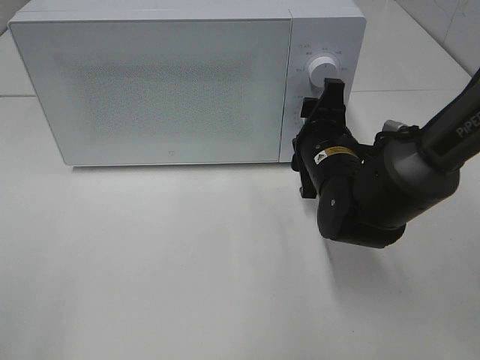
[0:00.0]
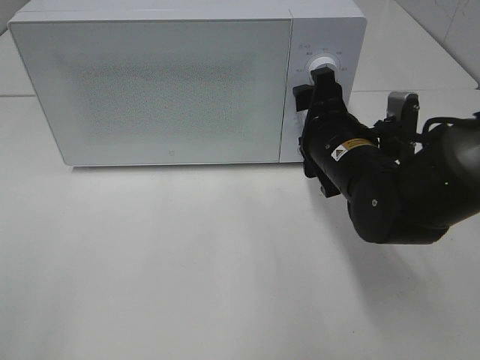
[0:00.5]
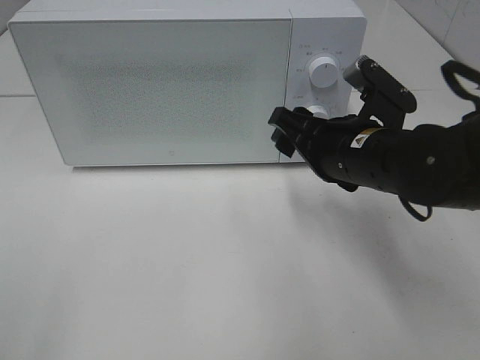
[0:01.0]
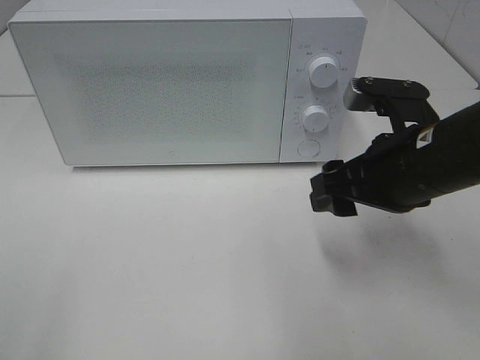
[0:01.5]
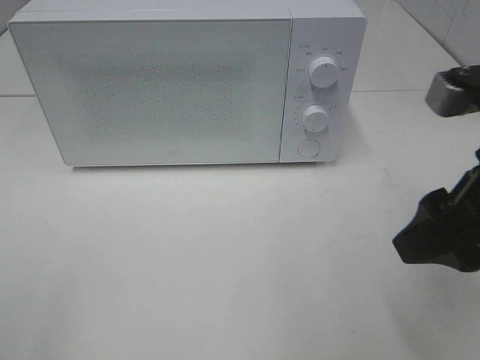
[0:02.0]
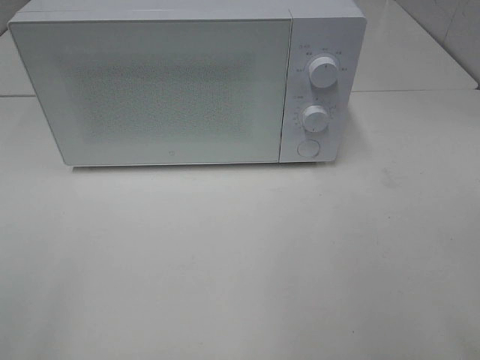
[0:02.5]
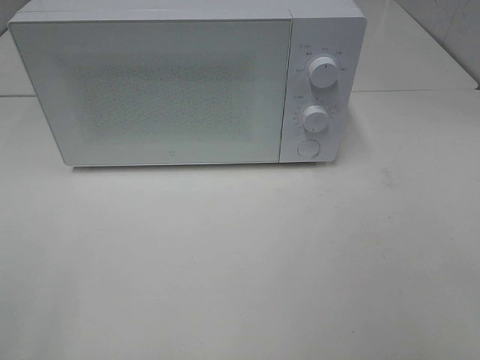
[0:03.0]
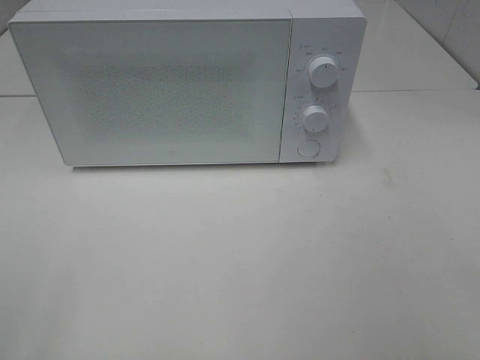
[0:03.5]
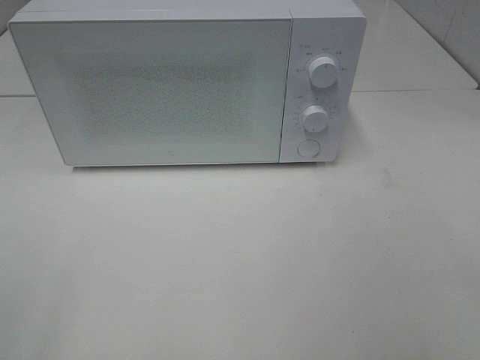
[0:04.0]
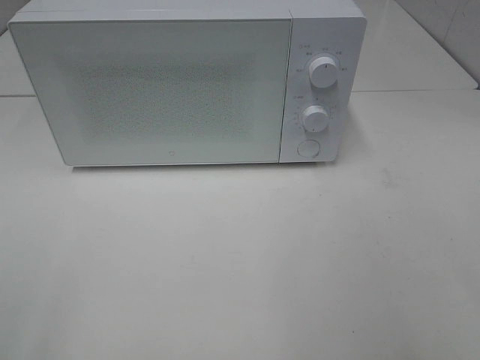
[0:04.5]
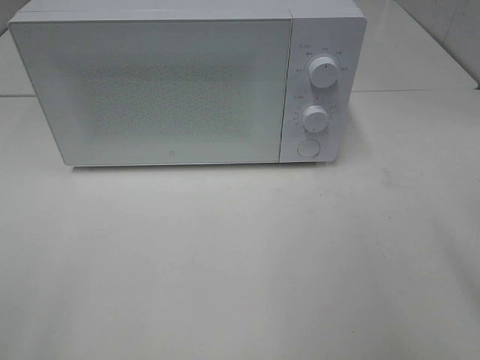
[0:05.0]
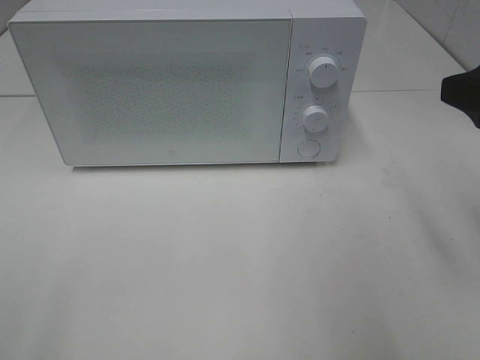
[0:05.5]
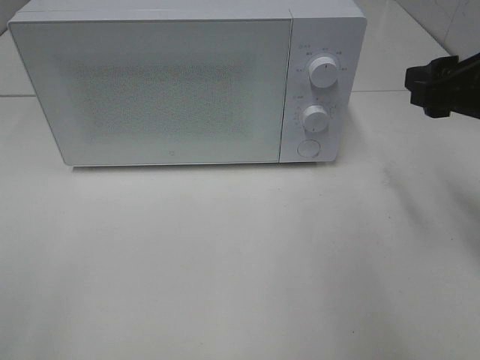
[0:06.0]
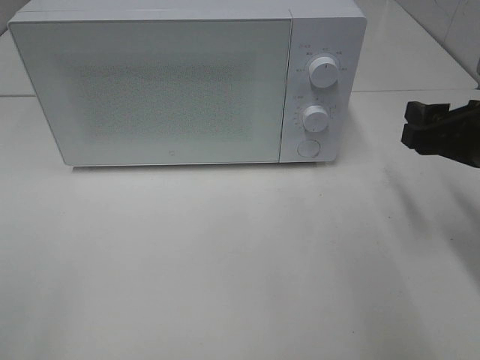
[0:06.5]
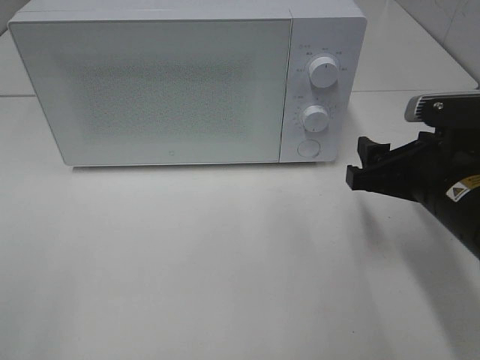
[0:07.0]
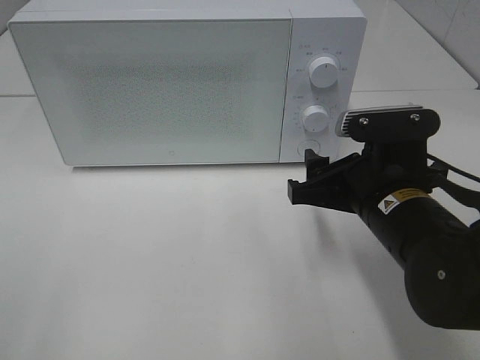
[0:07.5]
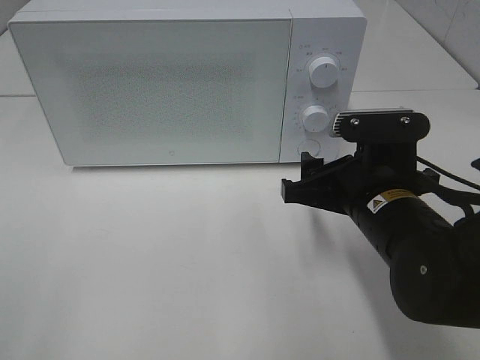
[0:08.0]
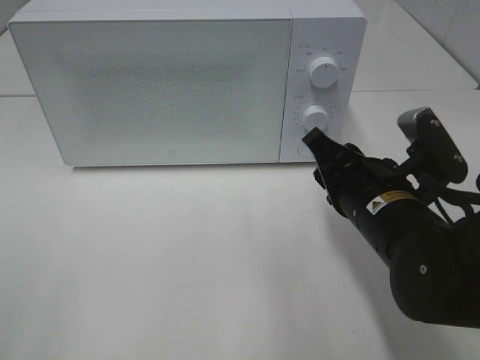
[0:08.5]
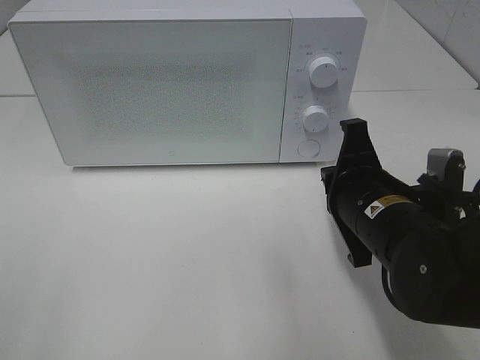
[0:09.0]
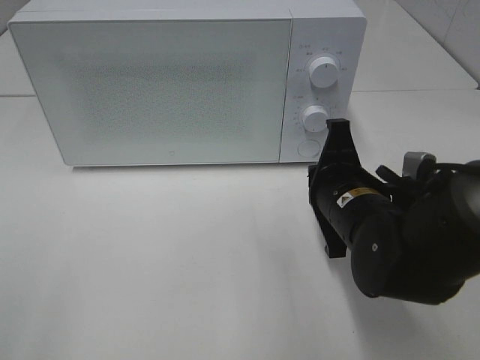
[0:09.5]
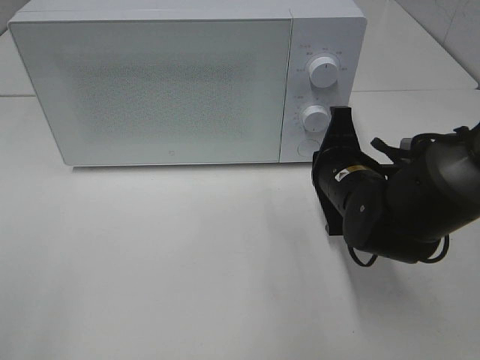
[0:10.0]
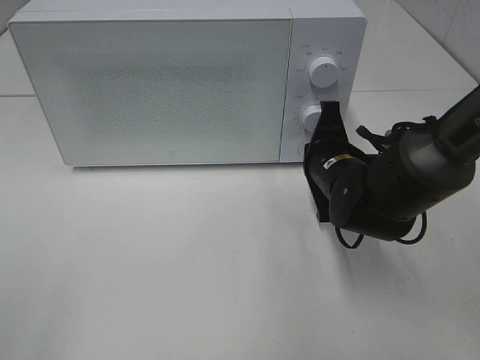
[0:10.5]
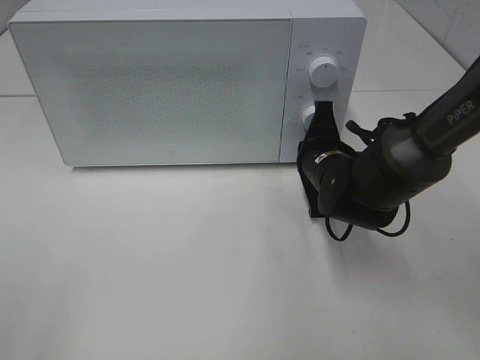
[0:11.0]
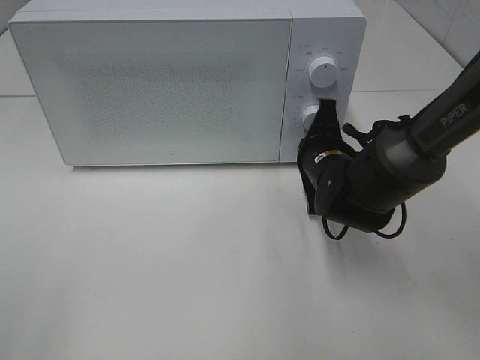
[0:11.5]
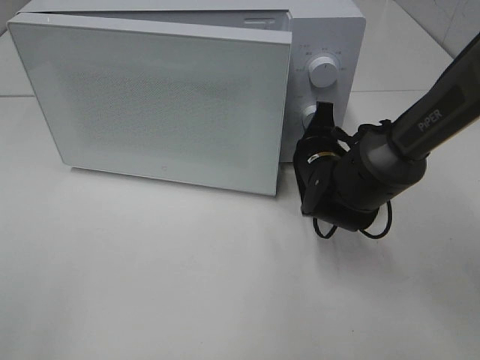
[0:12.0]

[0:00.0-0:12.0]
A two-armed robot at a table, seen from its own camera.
Task of the whole recording: Heat the burger.
0:00.0 to 0:02.0: The right gripper goes some 25 cm backward, upward and to the right.
0:02.0 to 0:04.0: The right gripper moves backward and to the right, approximately 20 cm.
0:04.0 to 0:06.0: The right gripper moves forward, roughly 25 cm.
0:06.0 to 0:08.0: The right gripper is displaced downward and to the left by about 15 cm.
0:08.0 to 0:10.0: The right gripper shifts about 5 cm forward, and closes up.
0:10.0 to 0:12.0: The right gripper heads forward, covering approximately 5 cm.

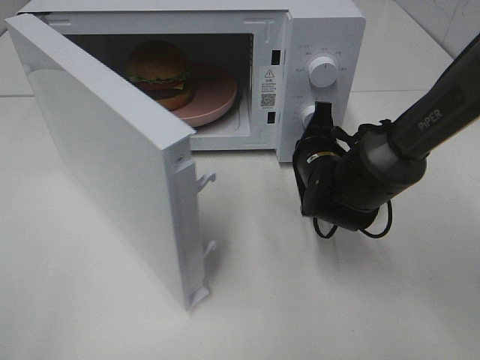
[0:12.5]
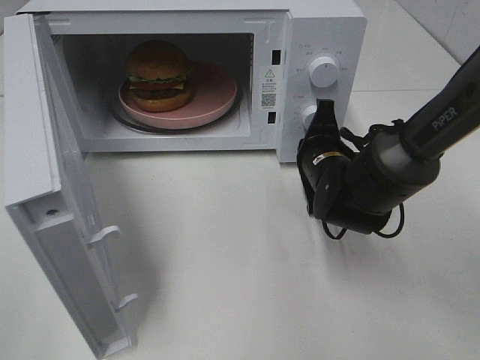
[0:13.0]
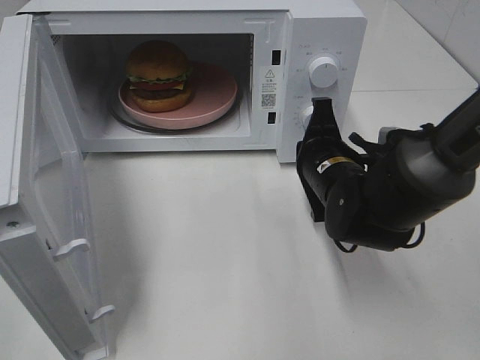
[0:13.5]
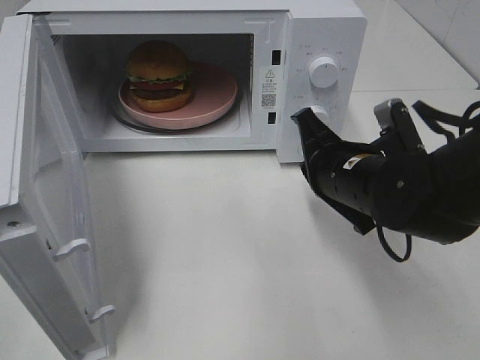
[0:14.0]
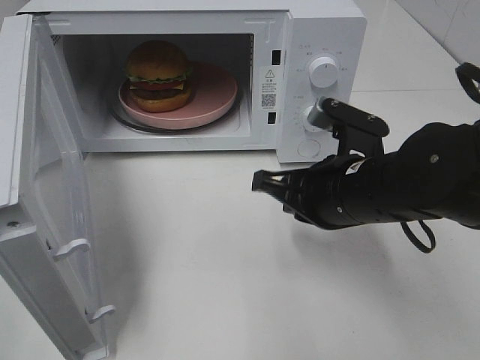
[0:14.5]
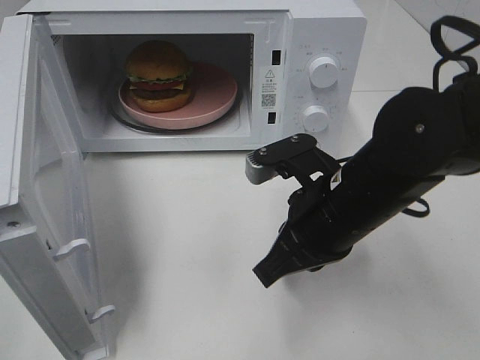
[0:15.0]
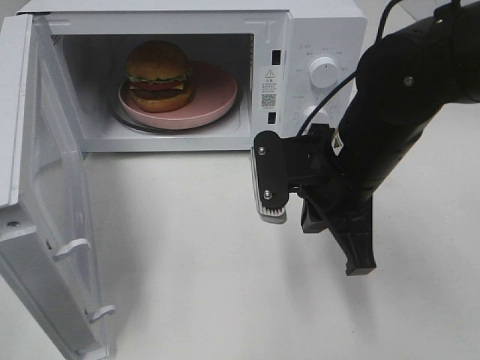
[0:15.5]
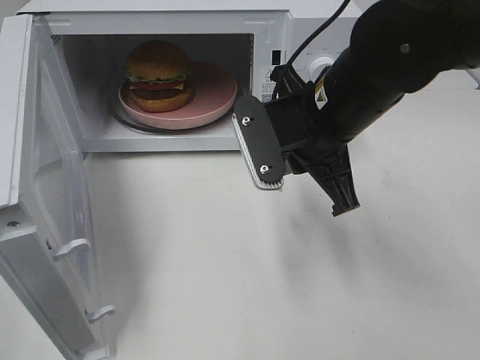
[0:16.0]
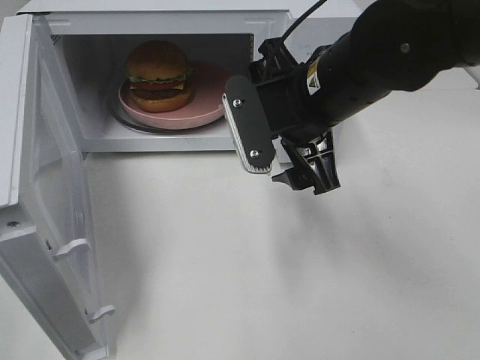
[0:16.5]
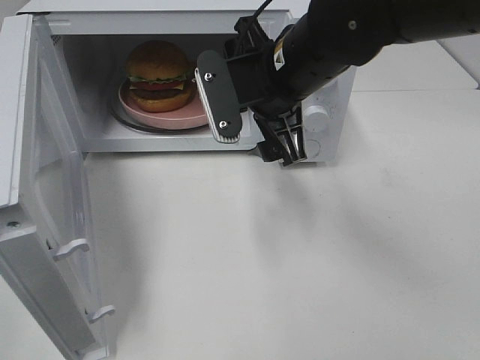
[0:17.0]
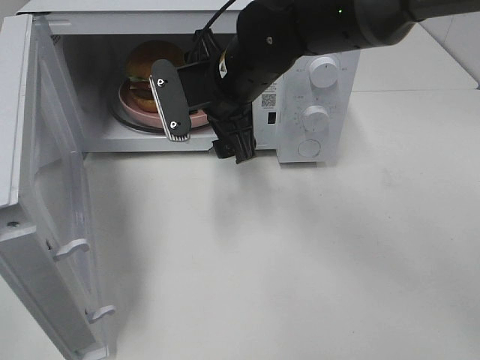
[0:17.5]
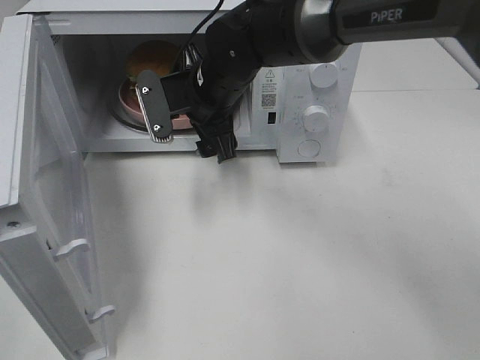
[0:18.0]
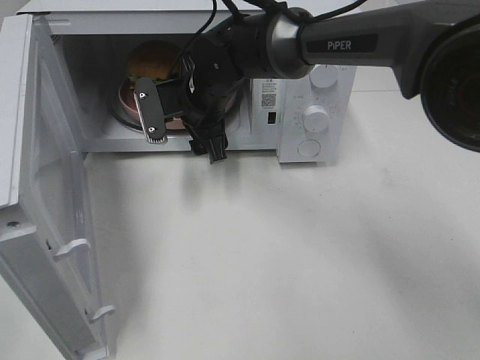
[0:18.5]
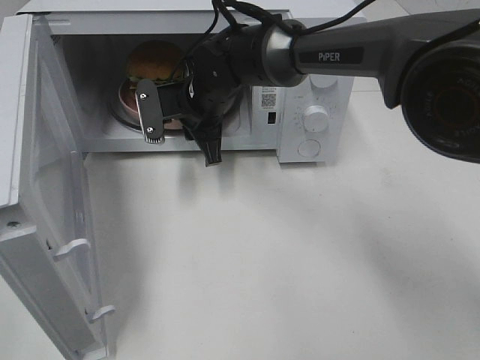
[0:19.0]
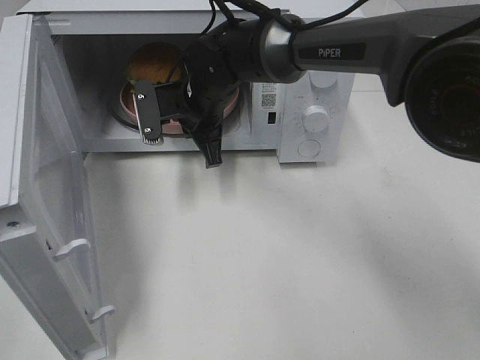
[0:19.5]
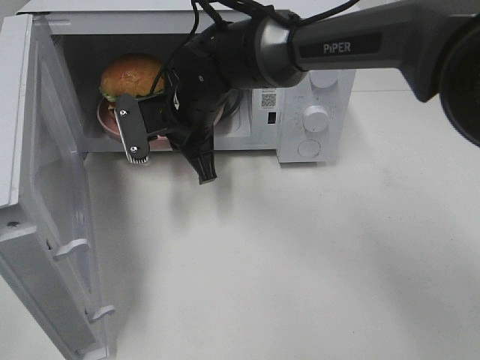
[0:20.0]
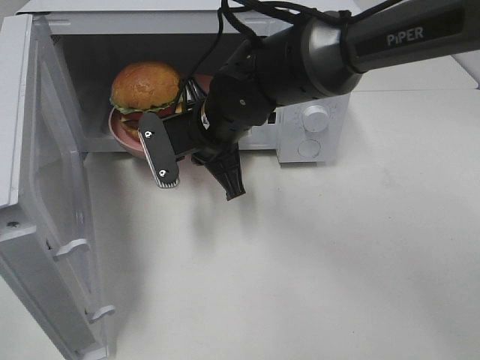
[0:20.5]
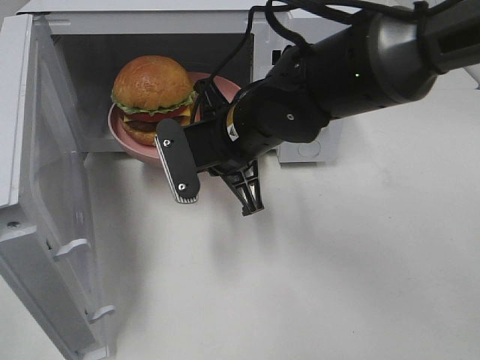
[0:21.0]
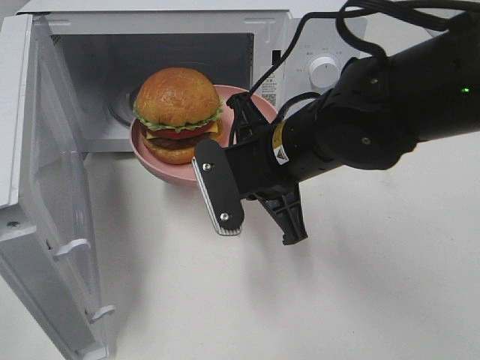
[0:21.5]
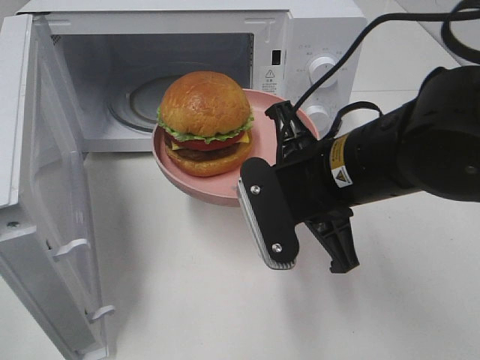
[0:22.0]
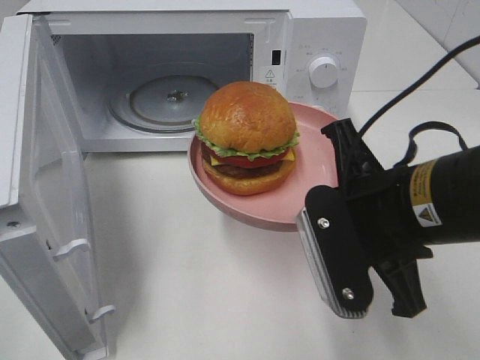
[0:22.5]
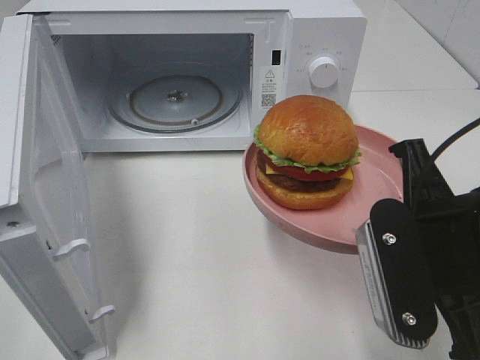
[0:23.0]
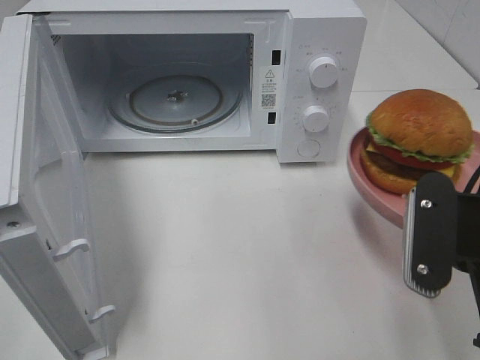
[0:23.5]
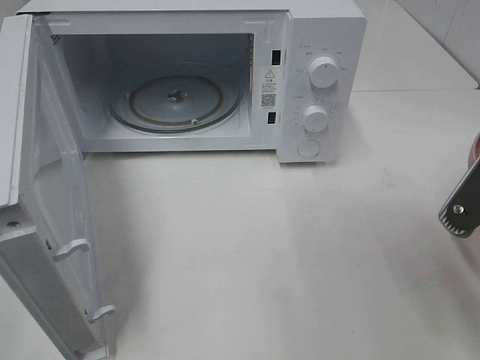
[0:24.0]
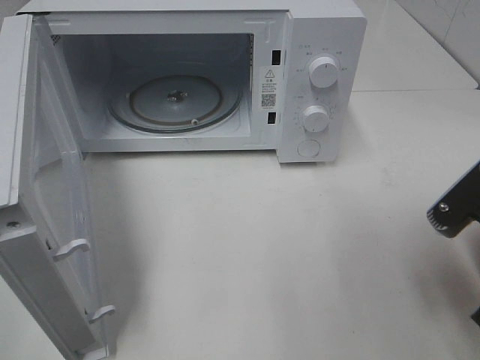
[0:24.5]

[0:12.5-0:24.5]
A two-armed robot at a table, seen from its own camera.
Task of the whole recording: Heat the burger.
Step, 0:13.5 to 0:19.0: Right hand: grab the plate with the hamburger.
0:12.5 to 0:14.5: The right gripper shifts approximately 15 cm backward and upward.
0:14.5 to 0:16.5: The right gripper goes about 10 cm upward, and opens up.
0:16.5 to 0:18.5: The right gripper shifts roughly 20 cm forward, to the left and downward.
0:18.5 to 0:20.5: The right gripper goes some 5 cm backward, and closes.
0:20.5 to 0:22.5: The right gripper moves backward and to the right, some 20 cm.
0:22.5 to 0:24.5: The right gripper moves to the right, roughly 10 cm.

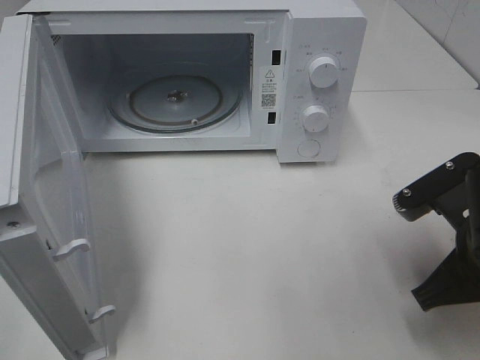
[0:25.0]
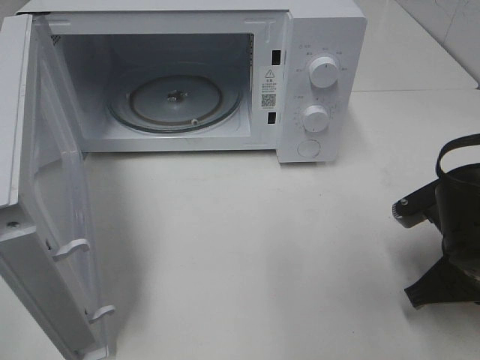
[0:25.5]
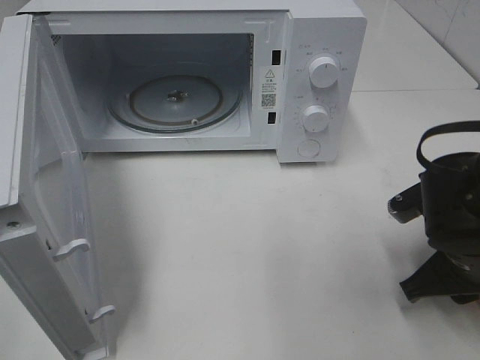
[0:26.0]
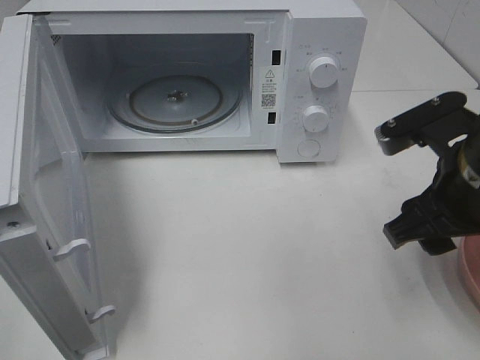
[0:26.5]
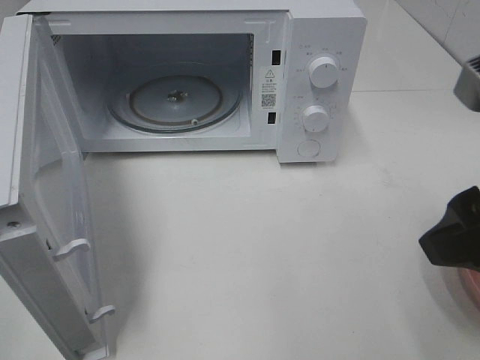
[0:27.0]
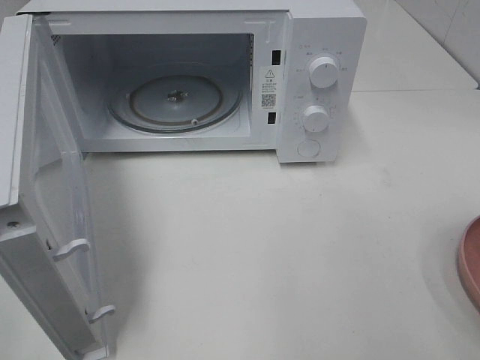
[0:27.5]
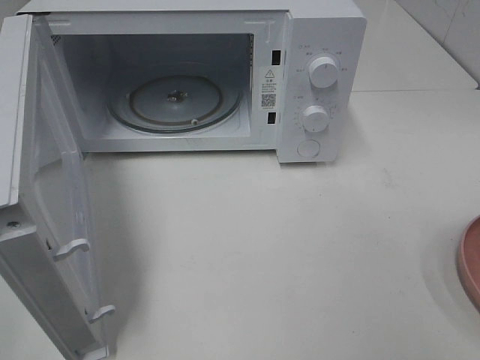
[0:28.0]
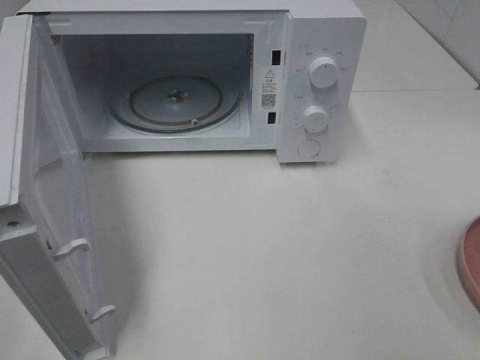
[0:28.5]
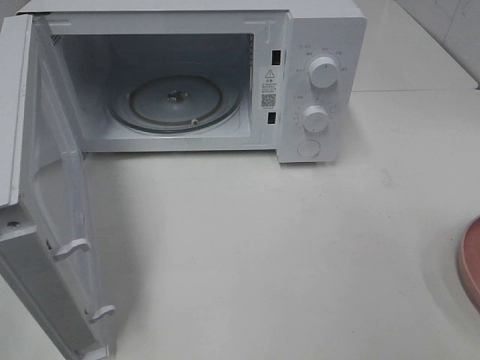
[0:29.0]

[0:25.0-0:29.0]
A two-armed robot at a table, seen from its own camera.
Task of the whole recording: Heat the burger.
0:25.0 to 0:27.0: The right gripper is displaced upward by about 15 cm, and opens its fingers.
0:27.0 to 0:29.0: The right gripper is displaced backward and to the right by roughly 15 cm.
